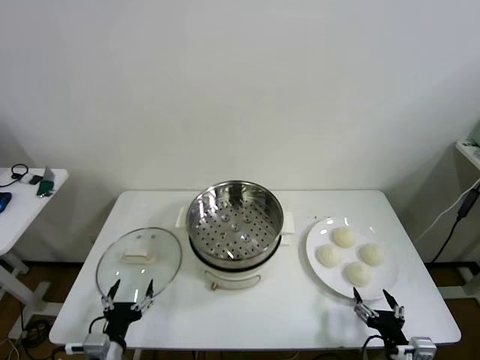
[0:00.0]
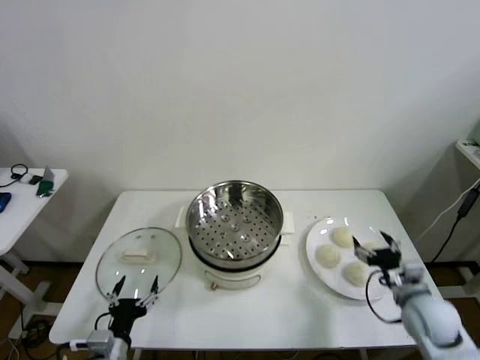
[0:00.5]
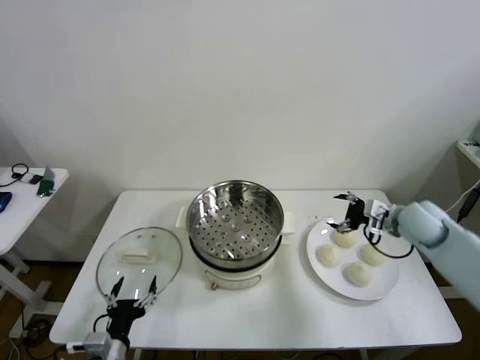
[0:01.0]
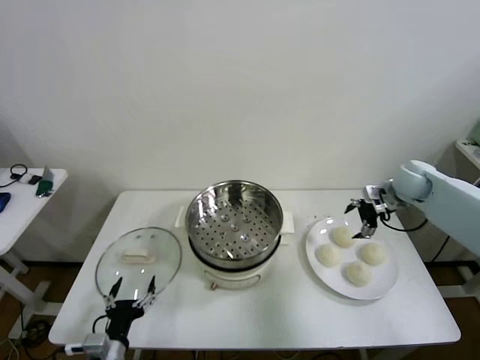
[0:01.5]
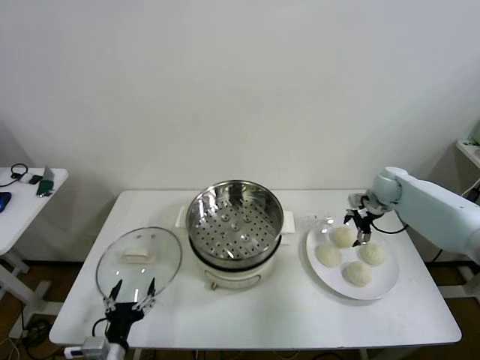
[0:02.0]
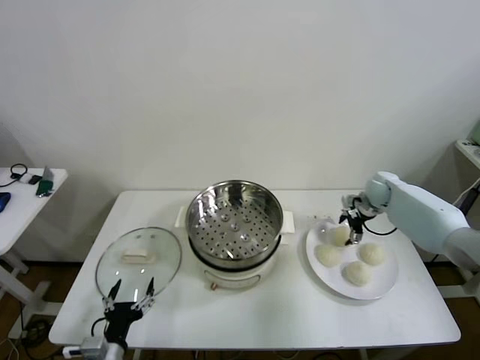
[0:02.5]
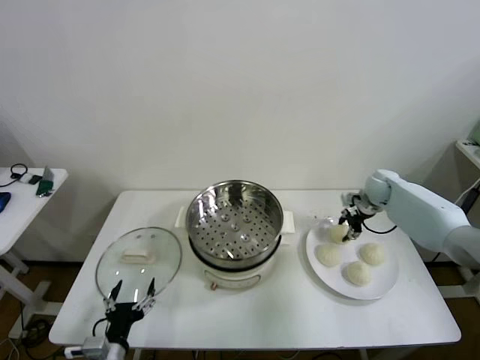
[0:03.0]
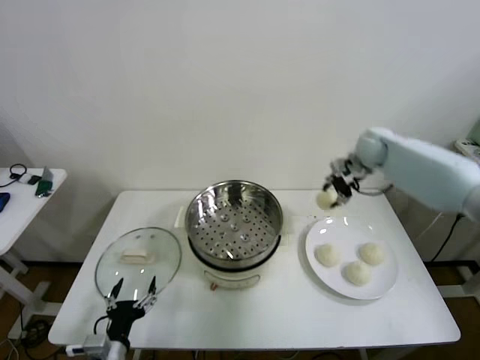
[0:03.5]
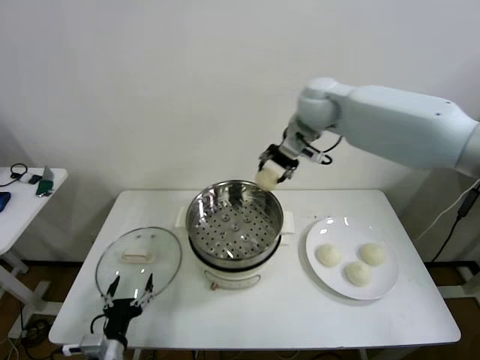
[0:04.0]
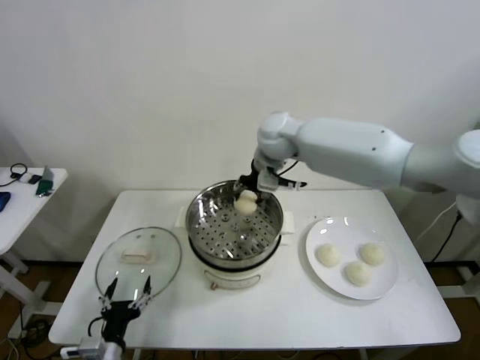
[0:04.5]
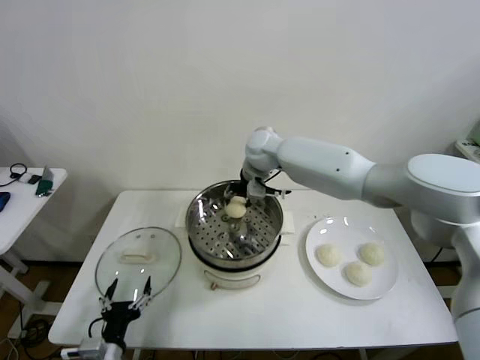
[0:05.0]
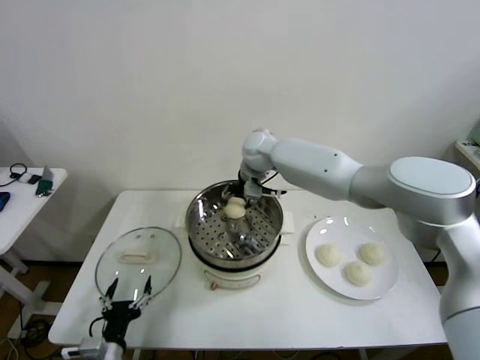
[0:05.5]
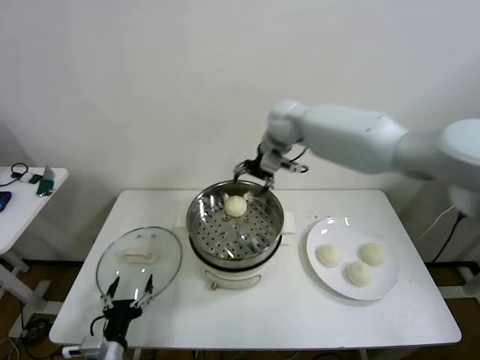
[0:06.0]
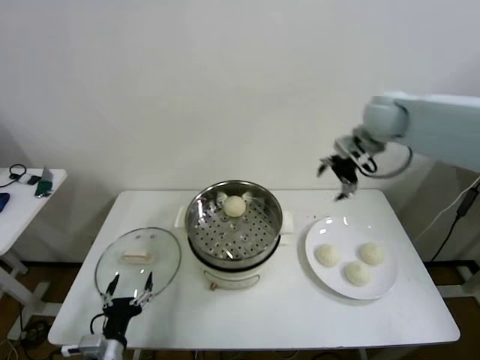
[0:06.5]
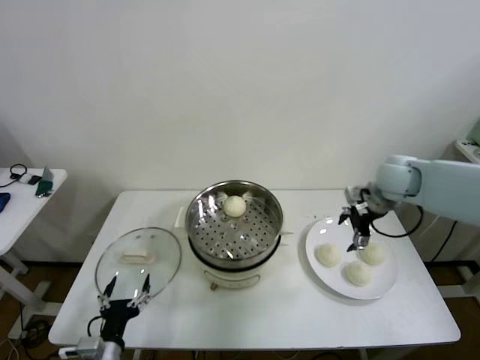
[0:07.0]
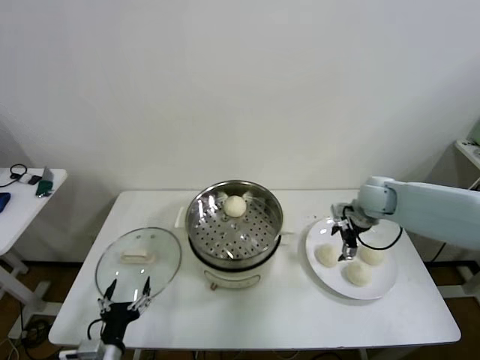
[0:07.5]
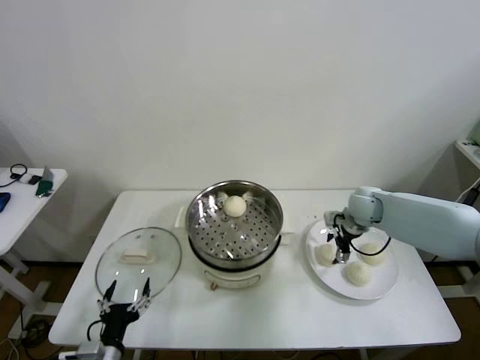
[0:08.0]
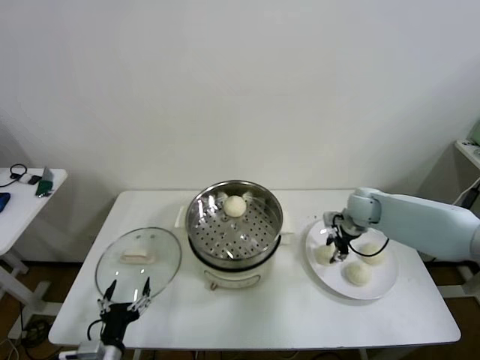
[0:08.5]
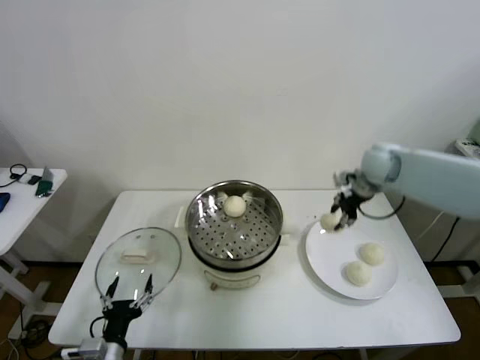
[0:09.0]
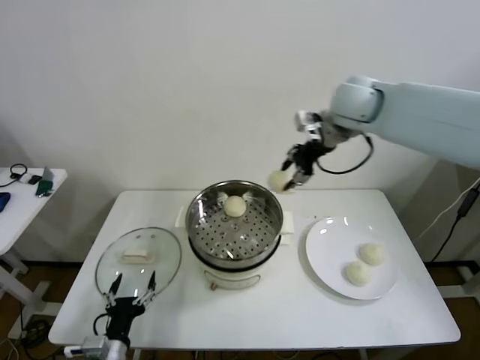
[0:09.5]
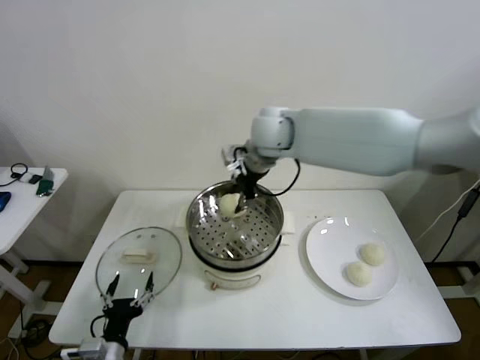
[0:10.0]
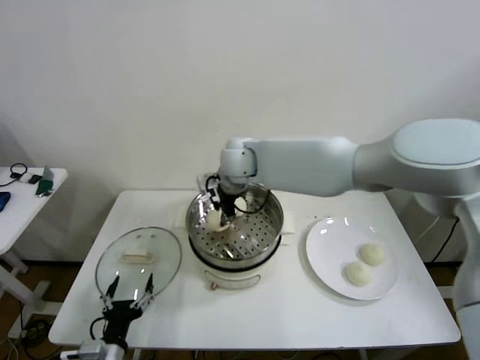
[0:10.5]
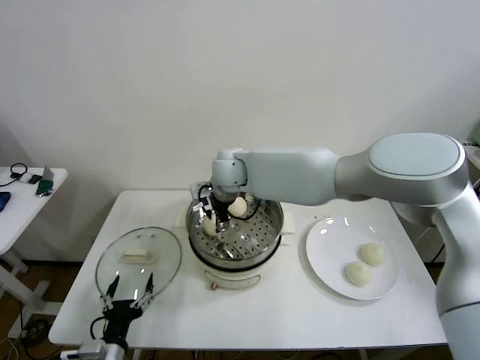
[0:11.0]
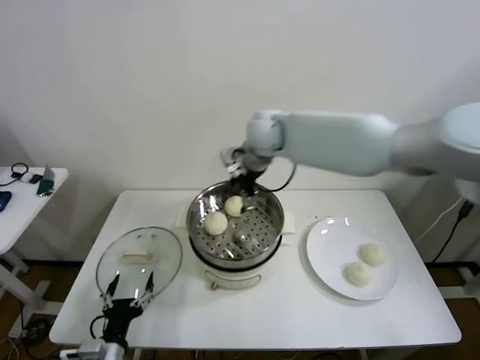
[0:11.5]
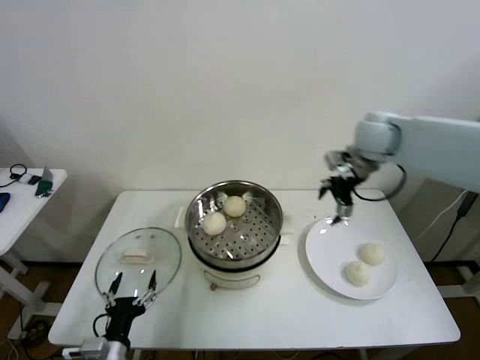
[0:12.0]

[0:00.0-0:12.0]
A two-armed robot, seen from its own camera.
Step, 0:00.0 to 0:02.5: Grasp the baozi in the plate with right gripper.
Step, 0:03.0 to 0:05.5: Place the baozi on the steamer with right gripper.
Step, 0:06.0 to 0:08.5: Grasp the baozi in the plate with right gripper.
Step, 0:09.0 to 0:11.0: Place the baozi on the steamer with right gripper.
0:02.0 to 0:04.0: The right gripper travels to the left and upward by approximately 35 cm, and closes its fingers.
0:04.0 to 0:06.0: The right gripper reaches some 15 cm downward, then returns, and opens.
0:06.0 to 0:08.0: The right gripper moves downward and to the right, roughly 30 cm.
0:08.0 to 0:10.0: The right gripper goes approximately 35 cm to the left and upward, and closes its fingers.
0:10.0 to 0:12.0: The right gripper travels to the right by about 25 cm, and opens up.

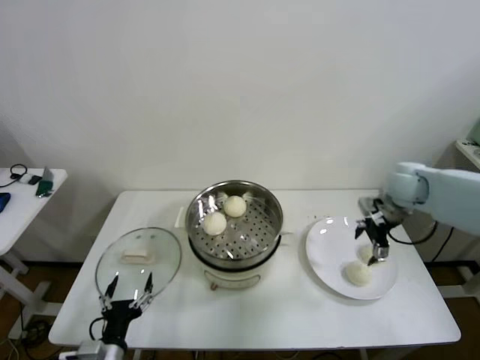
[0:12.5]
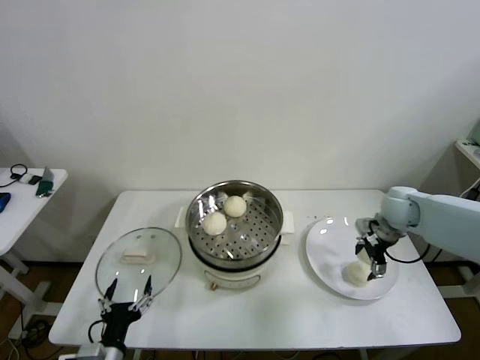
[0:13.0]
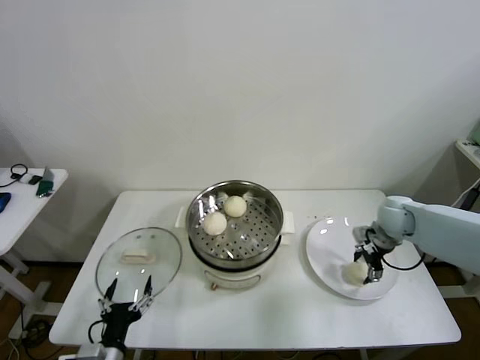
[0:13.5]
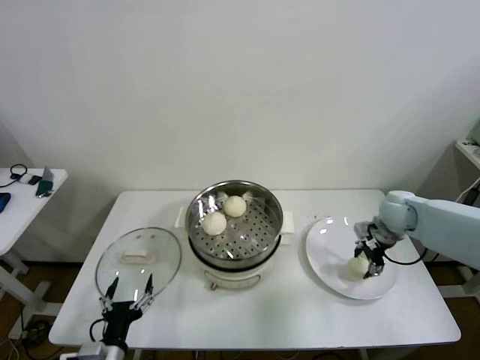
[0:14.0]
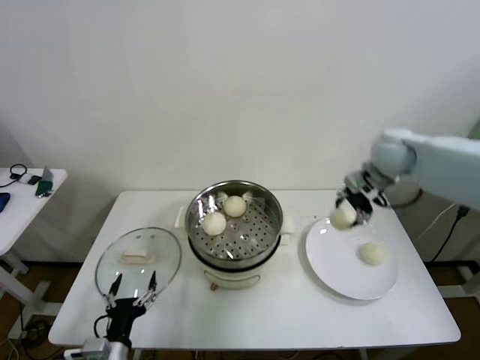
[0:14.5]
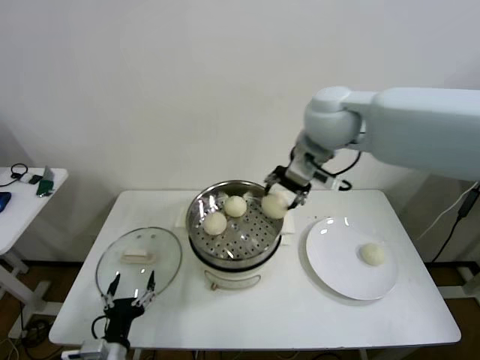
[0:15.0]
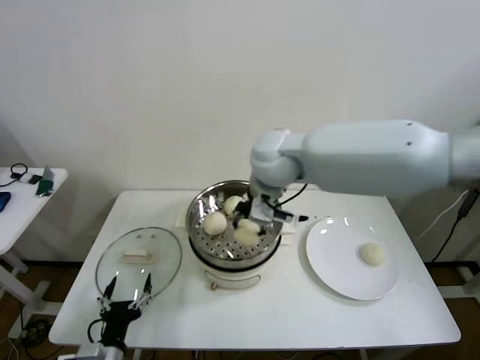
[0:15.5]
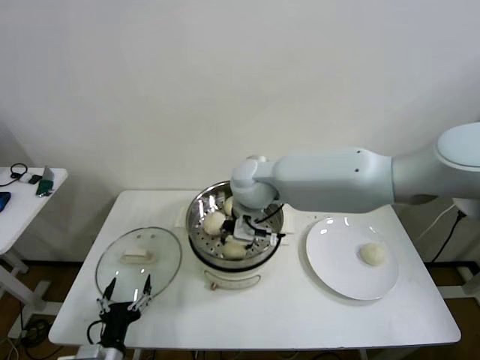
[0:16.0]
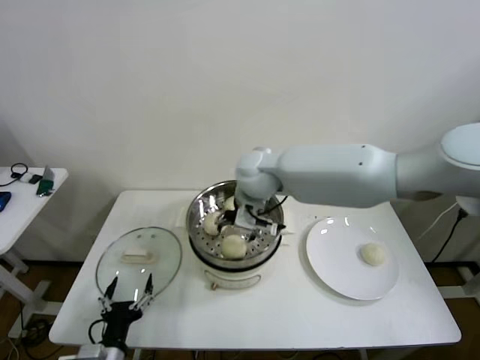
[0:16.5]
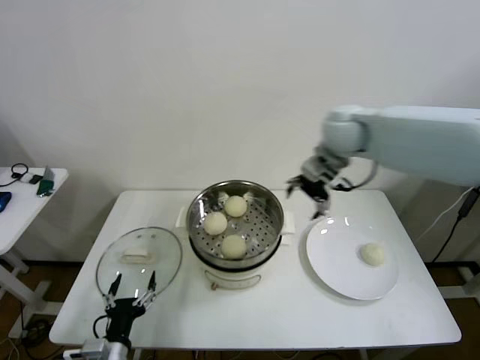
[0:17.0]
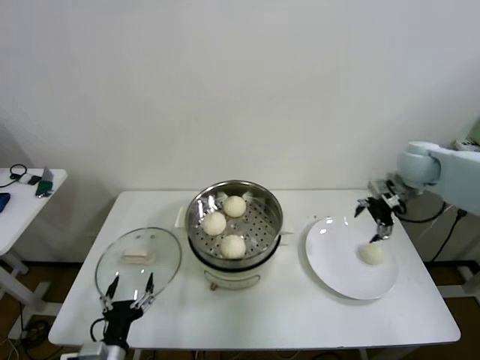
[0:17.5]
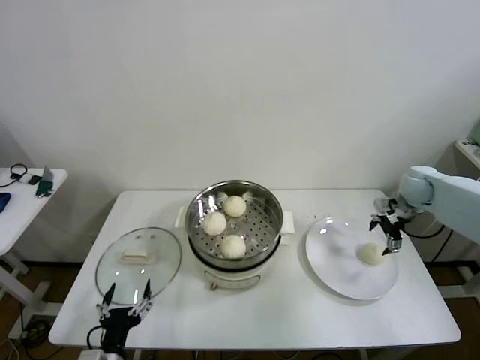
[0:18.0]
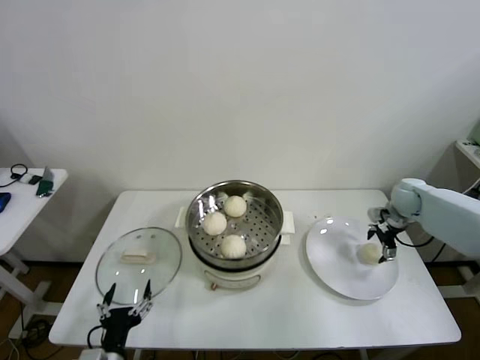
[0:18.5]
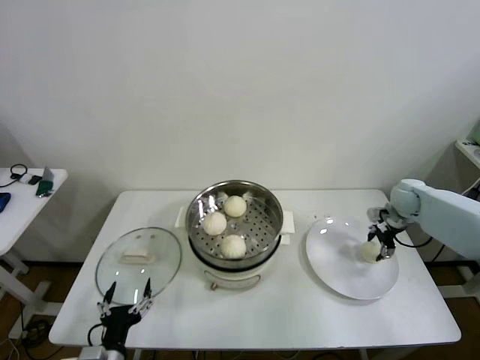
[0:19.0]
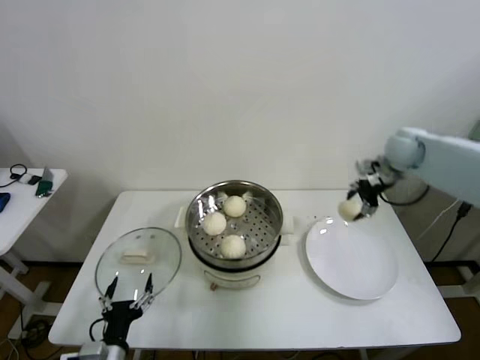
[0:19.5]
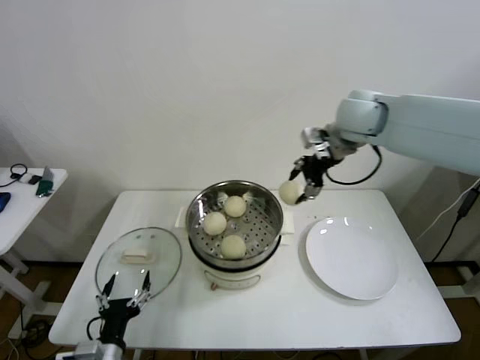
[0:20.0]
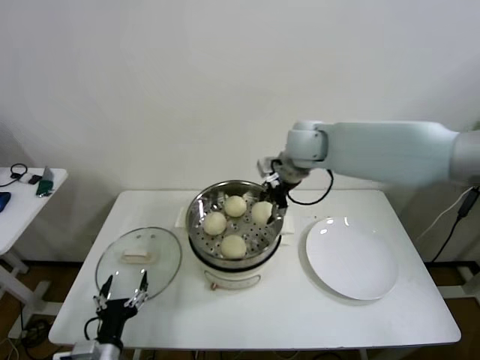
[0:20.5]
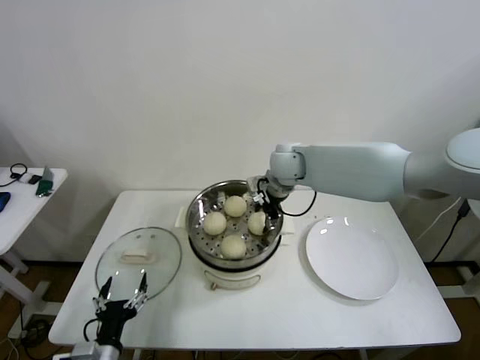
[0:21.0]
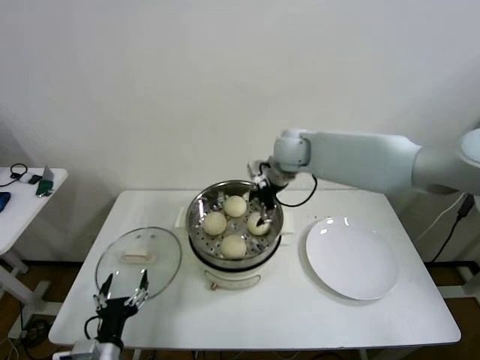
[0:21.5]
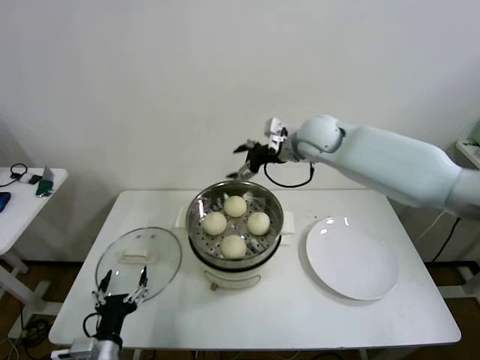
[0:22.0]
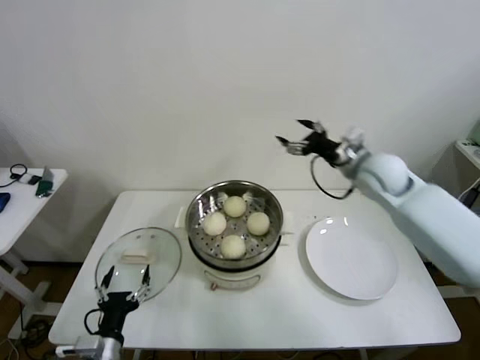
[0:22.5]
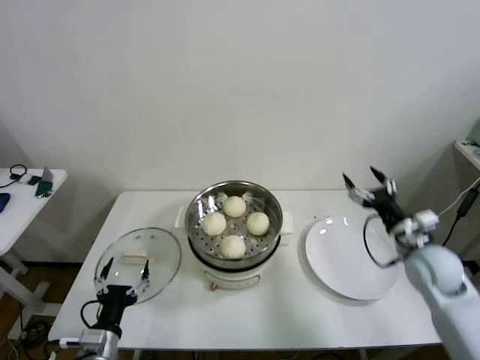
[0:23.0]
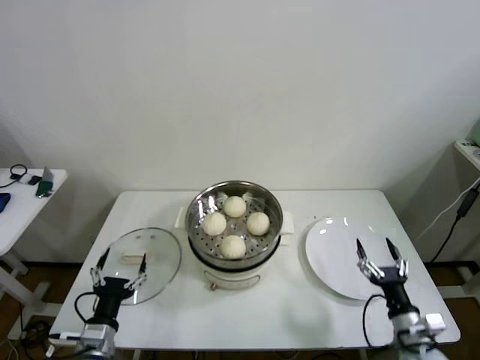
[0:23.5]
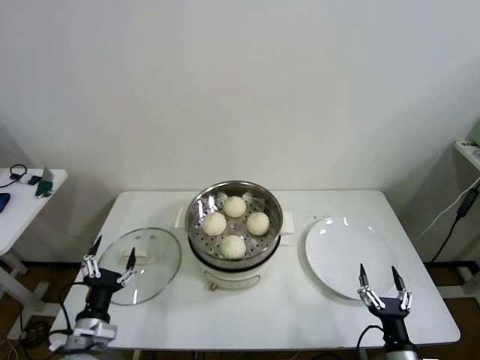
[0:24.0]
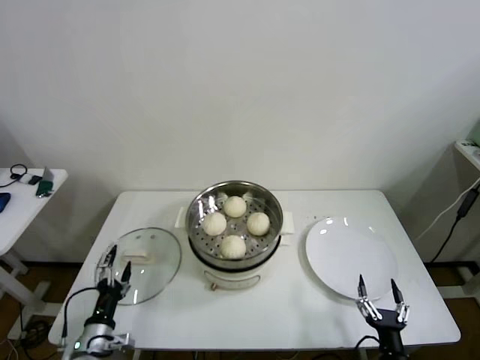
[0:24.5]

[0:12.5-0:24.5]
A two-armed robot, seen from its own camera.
Step, 0:14.0 to 0:16.0: Place the baozi on the steamer with right gripper.
Step, 0:16.5 to 0:18.5: Grasp the baozi in the plate with right gripper.
Step, 0:19.0 to 0:21.0: Place the baozi on the steamer with right gripper.
0:12.5 to 0:14.5: The right gripper goes approximately 10 cm upward and to the left, and closes its fingers.
0:14.5 to 0:16.5: The right gripper travels to the left by approximately 30 cm, and opens its fingers.
0:16.5 to 0:18.5: The right gripper goes approximately 40 cm to the right.
0:18.5 to 0:20.5: The right gripper moves to the left and upward, some 35 cm, and closes.
0:20.5 to 0:22.5: The right gripper goes approximately 15 cm to the right, and opens up.
0:22.5 to 0:24.5: The right gripper travels backward and downward by some 50 cm. Meanwhile the left gripper shifts about 5 cm to the left.

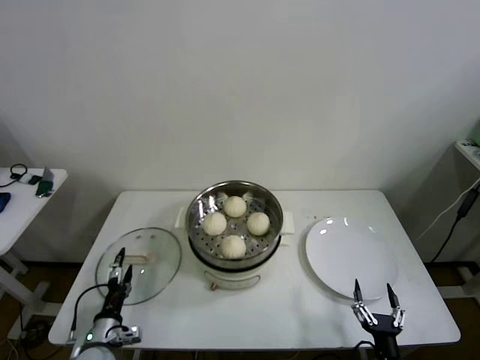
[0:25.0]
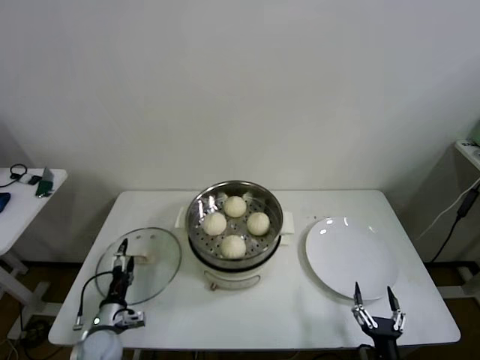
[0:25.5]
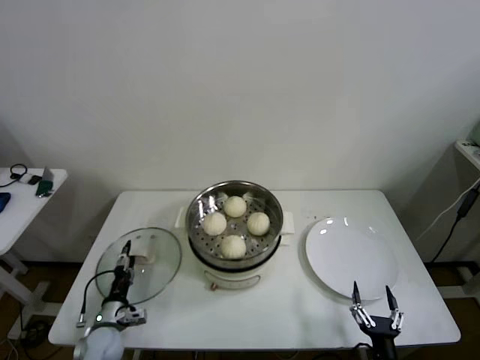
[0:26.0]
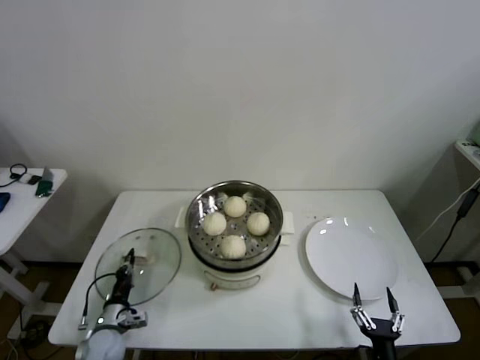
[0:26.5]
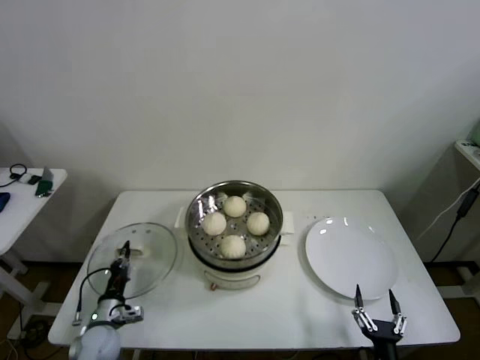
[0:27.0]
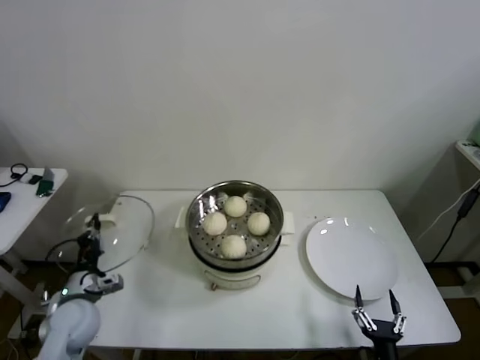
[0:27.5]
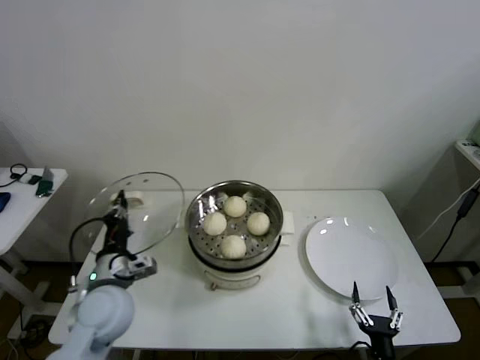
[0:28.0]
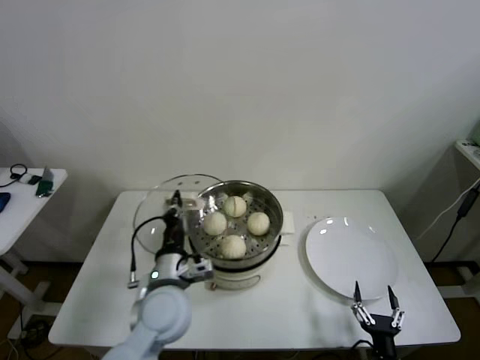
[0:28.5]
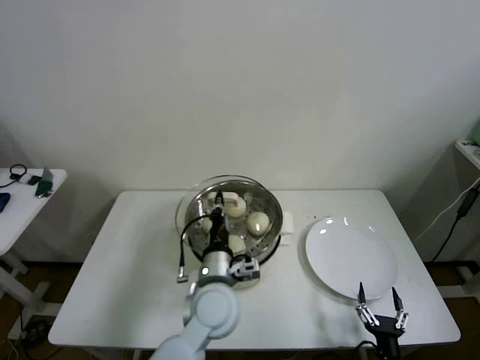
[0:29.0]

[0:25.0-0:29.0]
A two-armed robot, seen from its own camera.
0:25.0 to 0:27.0: The left gripper shifts about 5 cm forward, and closes its fingers.
0:27.0 to 0:29.0: The left gripper goes approximately 35 cm to the right and upward.
